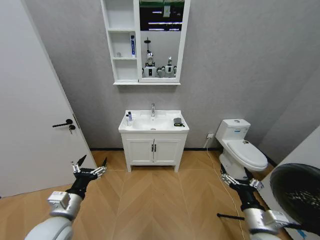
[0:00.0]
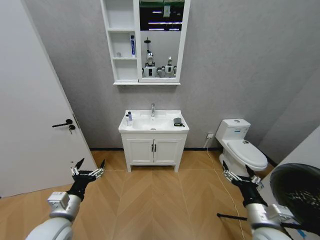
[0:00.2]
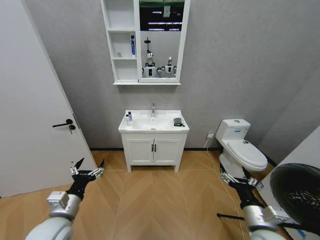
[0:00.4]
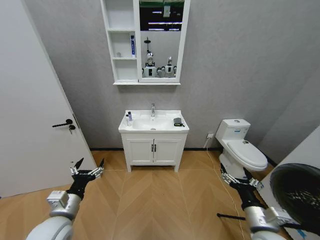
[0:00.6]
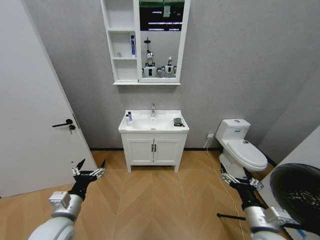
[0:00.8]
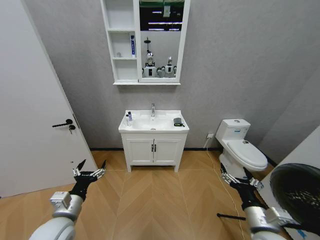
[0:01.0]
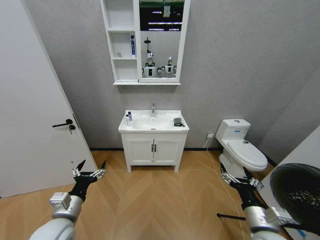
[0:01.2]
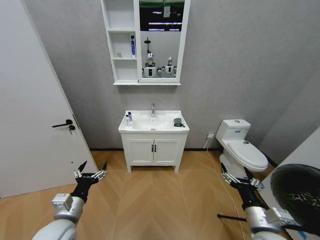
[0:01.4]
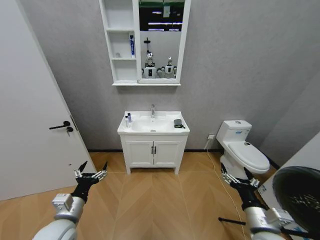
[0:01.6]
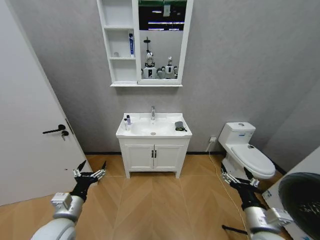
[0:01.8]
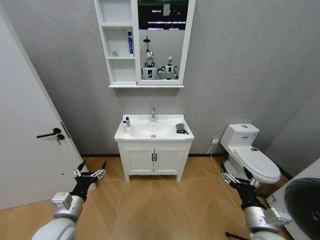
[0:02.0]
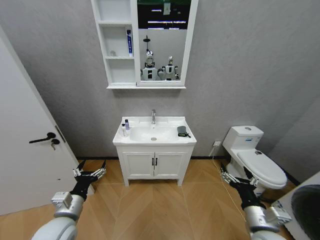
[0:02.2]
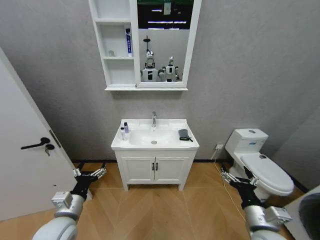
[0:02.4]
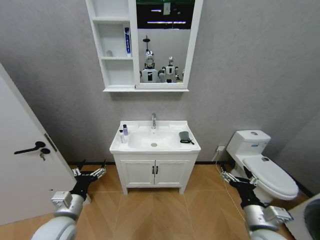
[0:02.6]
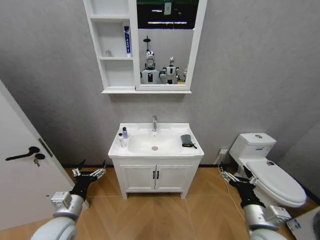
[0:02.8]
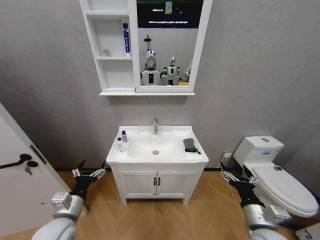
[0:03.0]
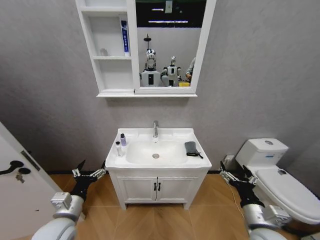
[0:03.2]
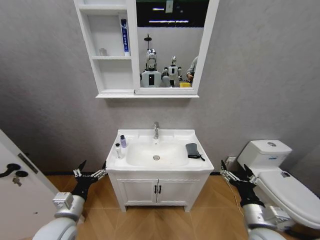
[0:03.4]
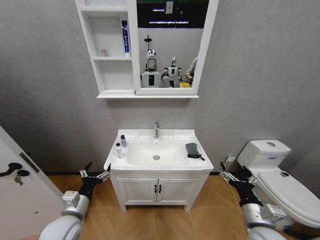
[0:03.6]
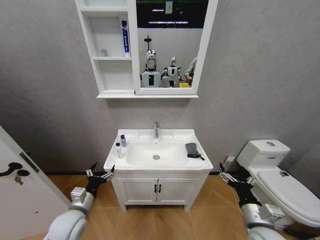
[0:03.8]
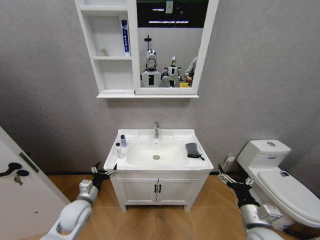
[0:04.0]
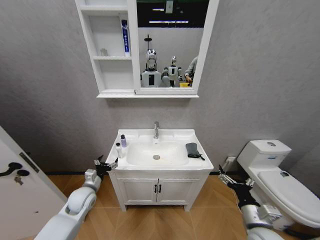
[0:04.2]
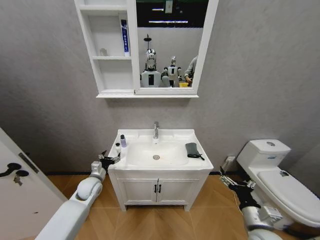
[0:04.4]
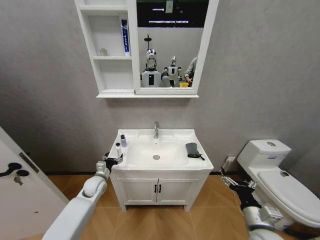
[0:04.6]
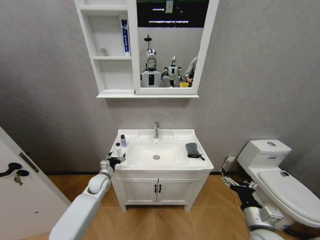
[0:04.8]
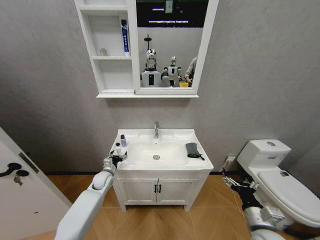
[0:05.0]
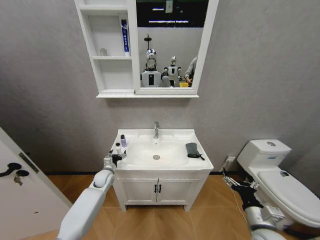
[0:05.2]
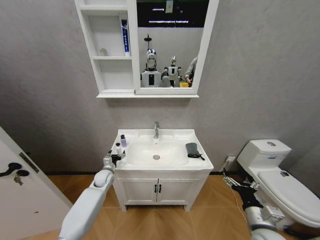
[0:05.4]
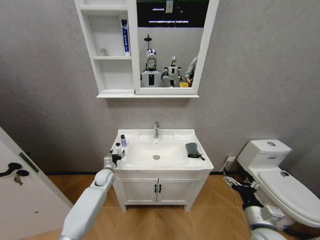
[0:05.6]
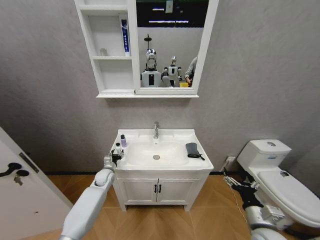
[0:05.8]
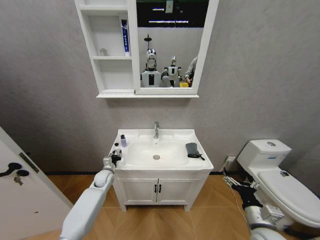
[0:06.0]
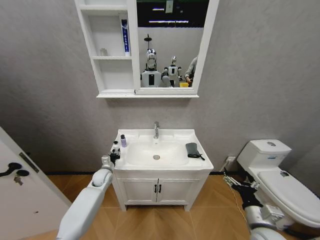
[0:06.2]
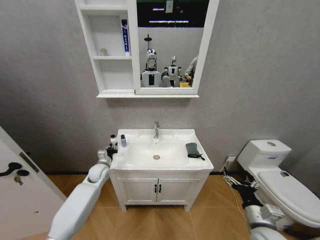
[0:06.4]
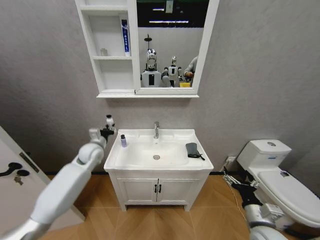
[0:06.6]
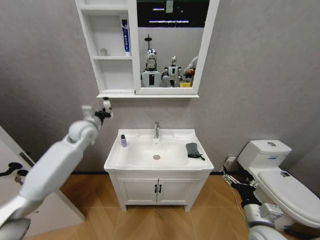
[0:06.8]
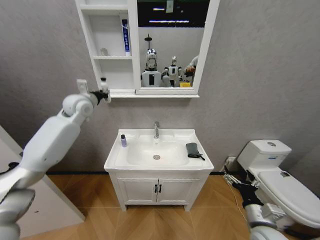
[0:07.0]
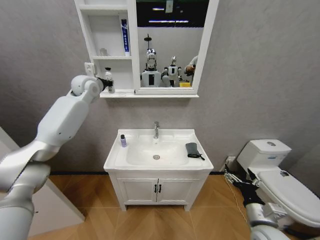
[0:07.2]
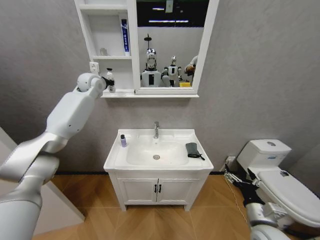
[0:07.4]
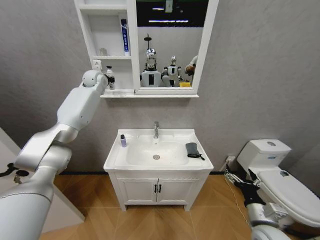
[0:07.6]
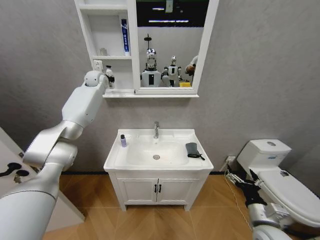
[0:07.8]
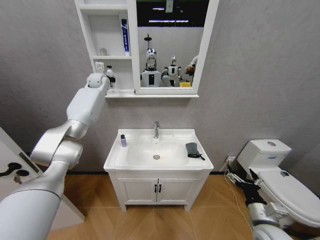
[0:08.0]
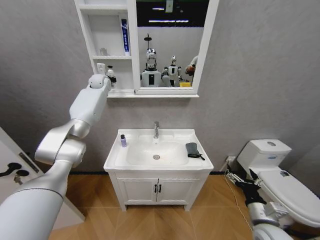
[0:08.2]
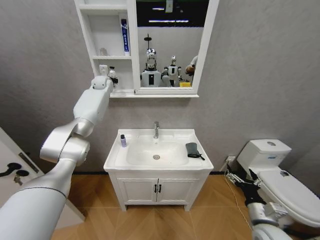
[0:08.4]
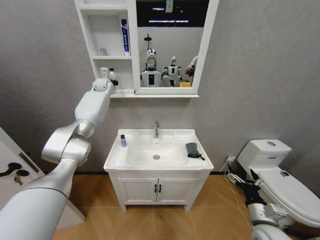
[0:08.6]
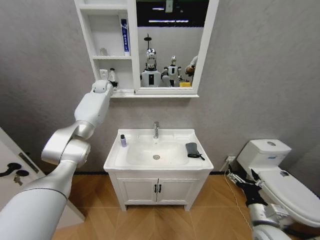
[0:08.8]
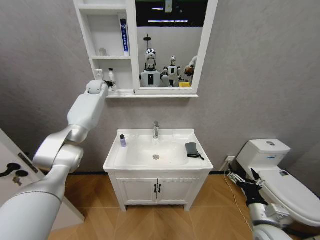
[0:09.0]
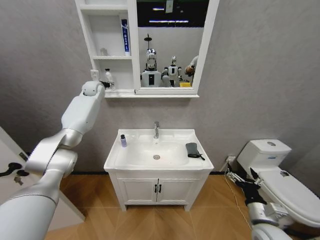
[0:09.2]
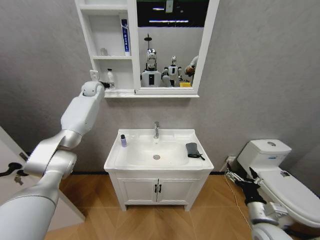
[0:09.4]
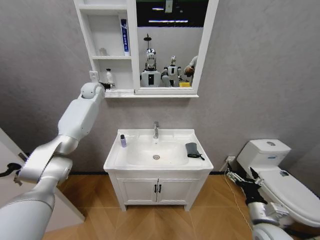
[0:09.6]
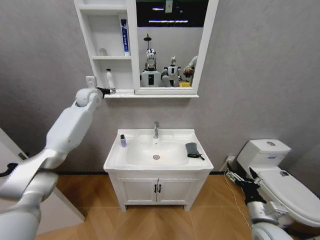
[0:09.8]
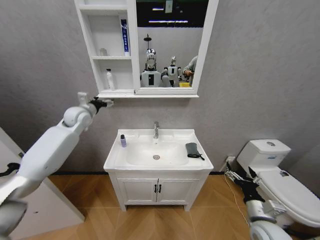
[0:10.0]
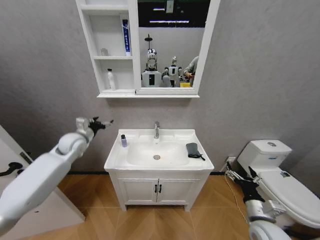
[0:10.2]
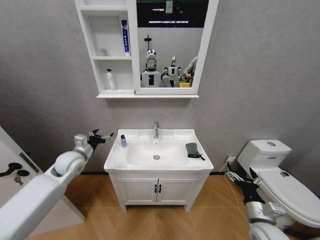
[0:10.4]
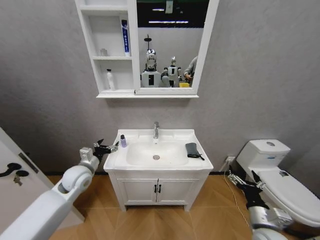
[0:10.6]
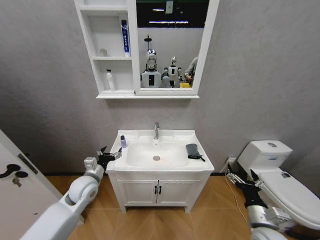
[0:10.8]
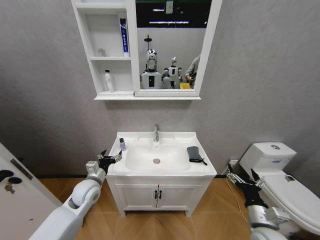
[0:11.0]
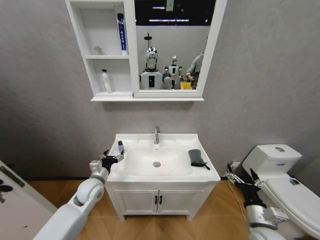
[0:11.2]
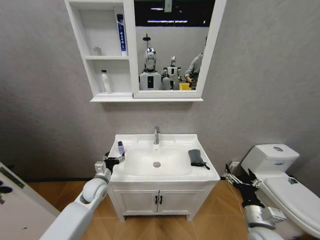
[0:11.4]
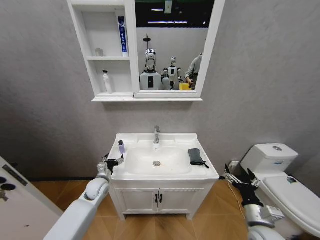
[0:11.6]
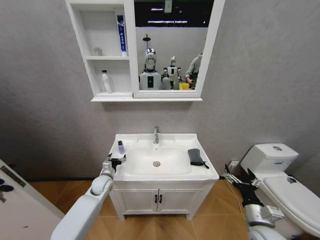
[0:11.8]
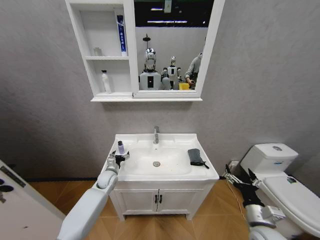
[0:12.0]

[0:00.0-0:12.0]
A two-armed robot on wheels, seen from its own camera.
Task of the whole recording: Move facial cleanser and shampoo from washbasin to cabinet, then wipe washbasin with towel.
0:03.0 to 0:04.4: The left gripper heads forward and downward, covering about 20 cm.
0:04.4 to 0:06.0: The left gripper goes roughly 10 cm forward and downward, and closes.
0:06.0 to 0:07.6: The left gripper shifts some 50 cm upward and forward.
0:07.6 to 0:09.0: The left gripper shifts by approximately 5 cm, and opens its fingers.
0:09.0 to 0:10.4: The left gripper goes approximately 40 cm backward and downward.
0:10.4 to 0:12.0: The left gripper goes approximately 20 cm downward and to the right.

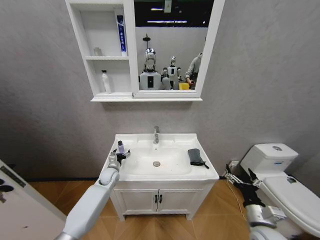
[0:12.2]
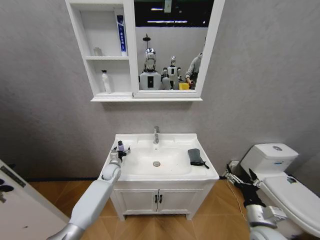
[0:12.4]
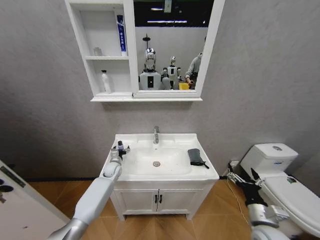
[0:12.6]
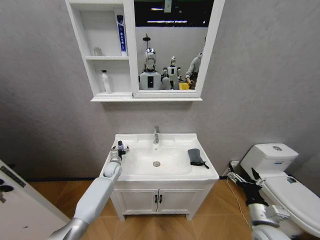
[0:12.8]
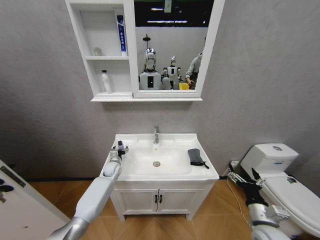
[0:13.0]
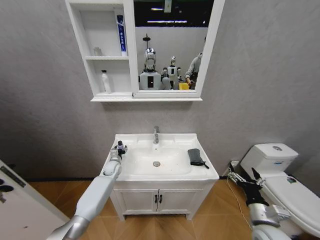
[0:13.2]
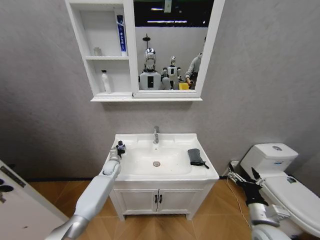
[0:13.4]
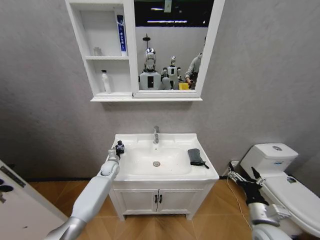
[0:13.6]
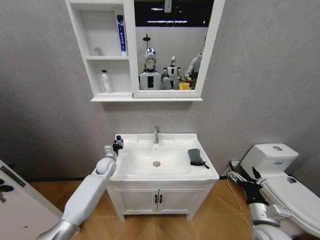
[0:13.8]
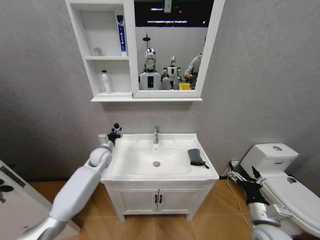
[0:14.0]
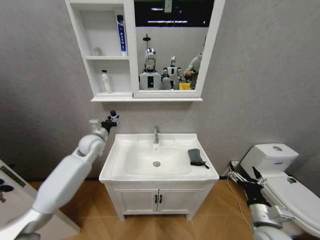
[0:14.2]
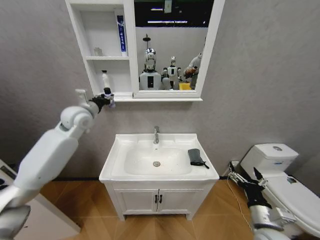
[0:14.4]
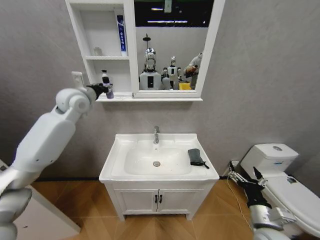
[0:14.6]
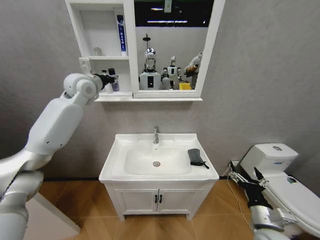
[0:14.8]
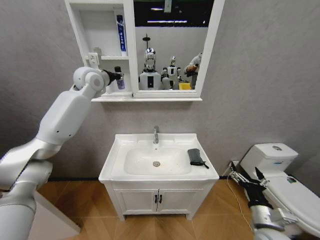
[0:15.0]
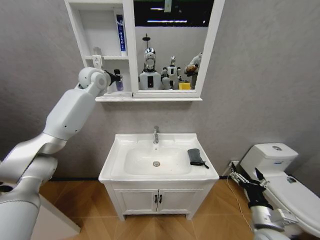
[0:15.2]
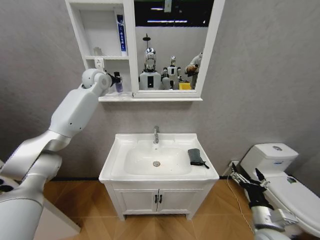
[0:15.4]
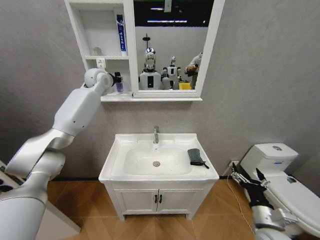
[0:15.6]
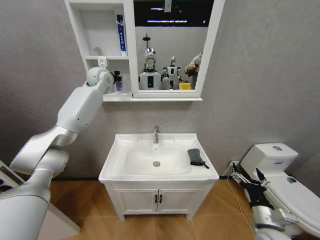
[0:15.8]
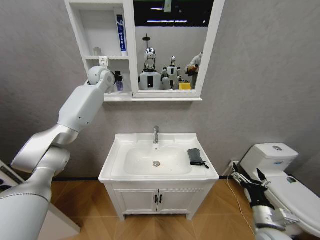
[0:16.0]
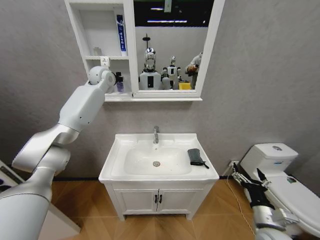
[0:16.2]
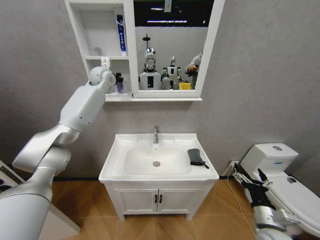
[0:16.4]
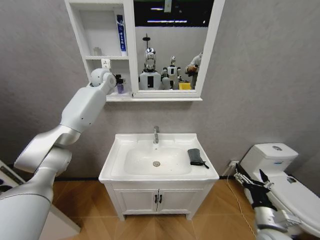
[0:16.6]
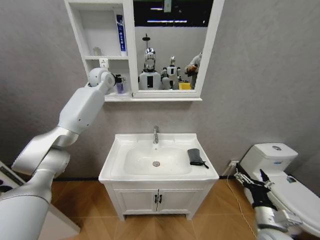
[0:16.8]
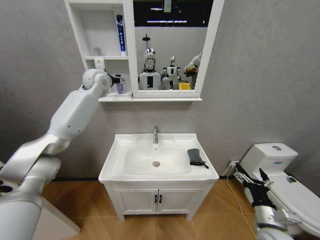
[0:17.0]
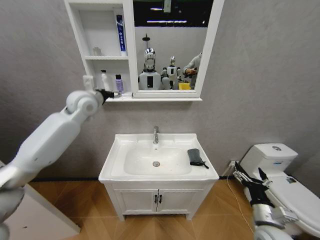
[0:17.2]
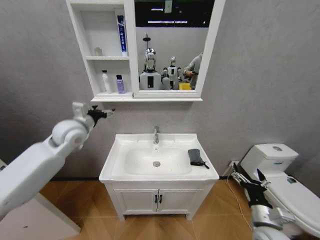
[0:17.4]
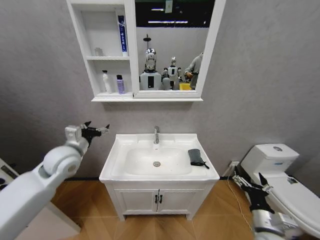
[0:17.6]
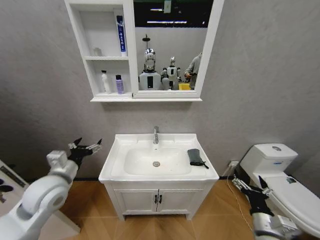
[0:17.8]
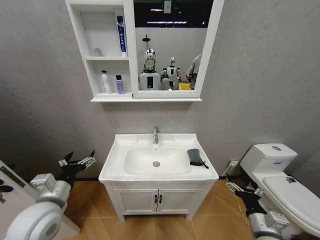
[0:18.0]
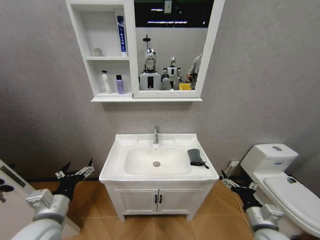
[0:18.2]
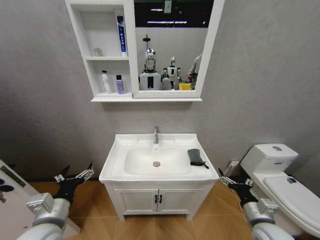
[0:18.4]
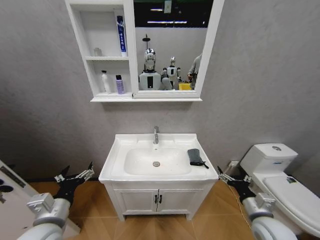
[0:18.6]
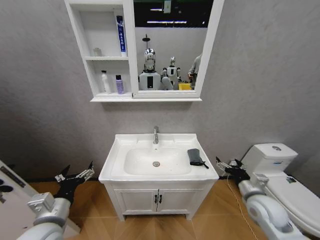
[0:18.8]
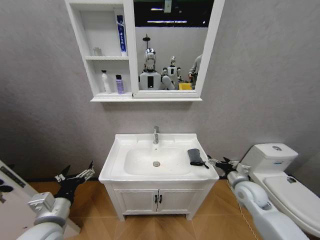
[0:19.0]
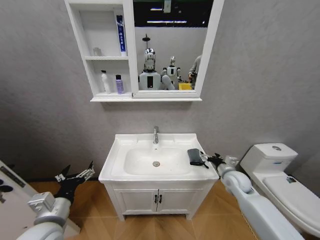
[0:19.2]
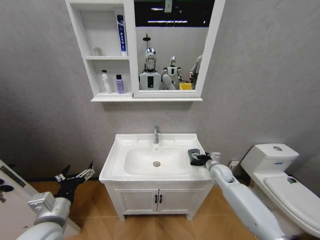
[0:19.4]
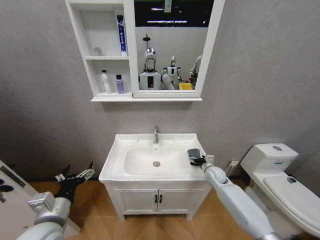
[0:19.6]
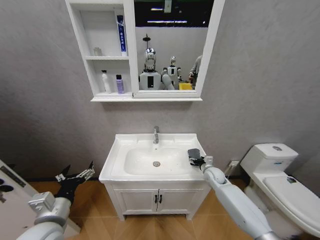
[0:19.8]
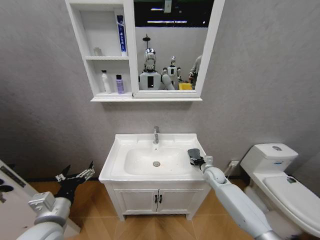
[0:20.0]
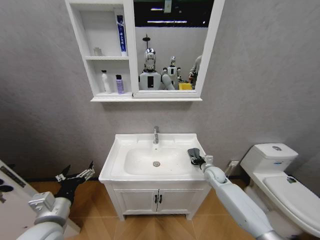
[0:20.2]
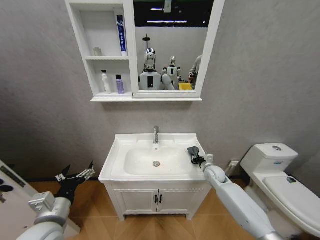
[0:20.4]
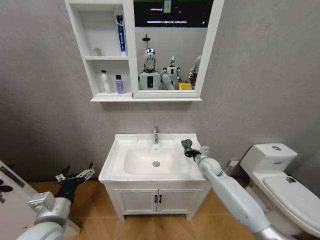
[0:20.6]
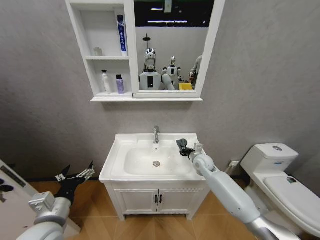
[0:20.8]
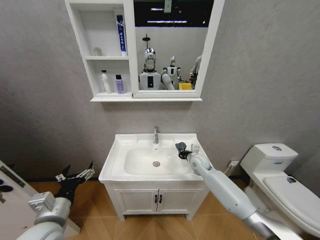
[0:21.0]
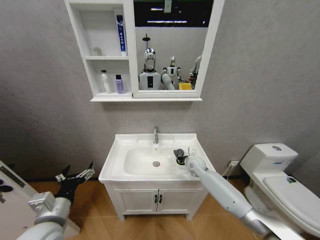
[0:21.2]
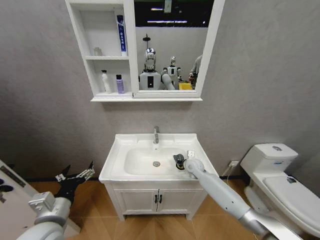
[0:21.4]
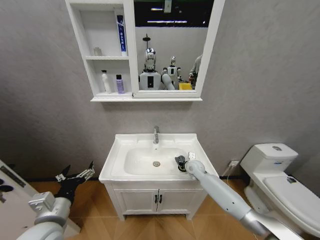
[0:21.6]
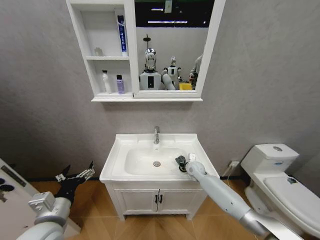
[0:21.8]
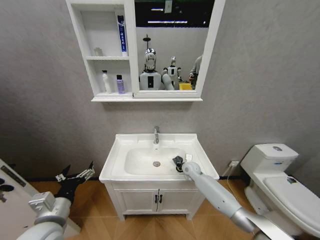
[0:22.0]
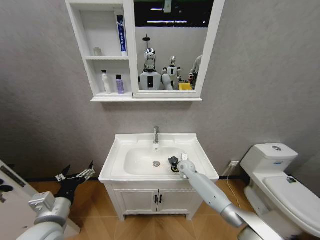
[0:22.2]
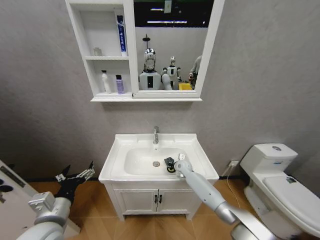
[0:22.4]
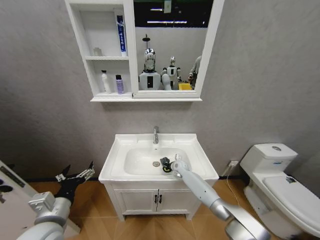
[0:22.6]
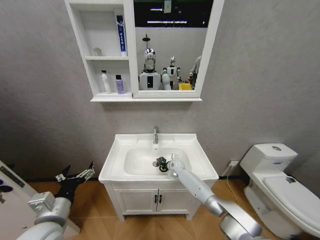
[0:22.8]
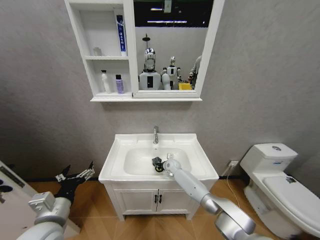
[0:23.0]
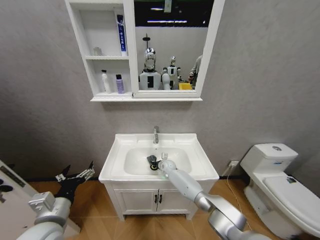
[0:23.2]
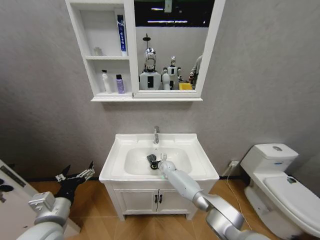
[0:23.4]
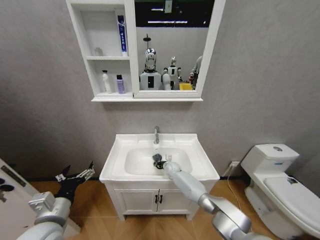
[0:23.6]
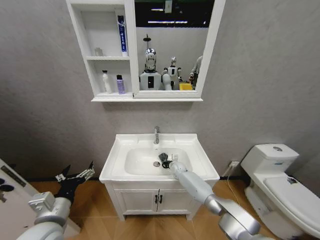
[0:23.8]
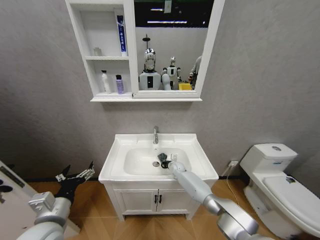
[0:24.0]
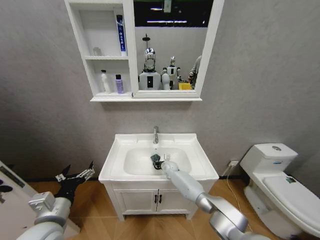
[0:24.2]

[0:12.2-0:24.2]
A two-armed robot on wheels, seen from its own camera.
Task of the whole recording: Move facial cleanser and shampoo from washbasin to cabinet, then wipe washbasin with towel.
0:12.2 to 0:13.8: The left gripper shifts by approximately 5 cm, and closes.
0:13.8 to 0:15.2: The left gripper shifts approximately 40 cm upward.
0:15.2 to 0:16.6: The left gripper changes place by some 5 cm.
0:16.6 to 0:18.2: The left gripper is displaced backward and downward by some 50 cm, and opens up.
0:18.2 to 0:19.8: The right gripper goes approximately 30 cm forward.
0:19.8 to 0:21.2: The right gripper heads to the left and upward, covering approximately 10 cm, and closes.
0:21.2 to 0:22.6: The right gripper goes approximately 10 cm downward and to the left.
0:22.6 to 0:24.2: The right gripper moves left and right over approximately 10 cm, changing direction 2 times.
